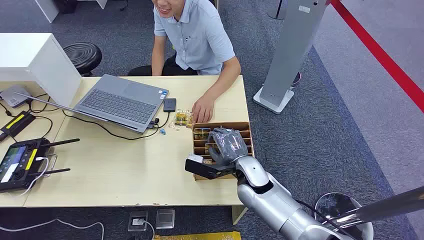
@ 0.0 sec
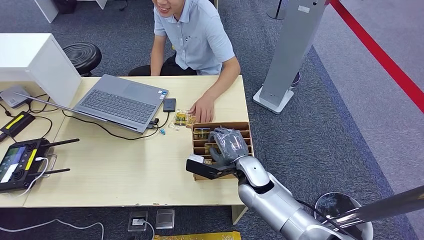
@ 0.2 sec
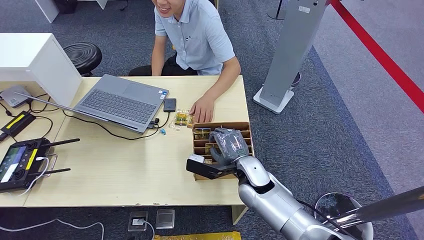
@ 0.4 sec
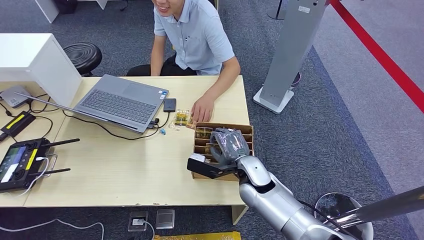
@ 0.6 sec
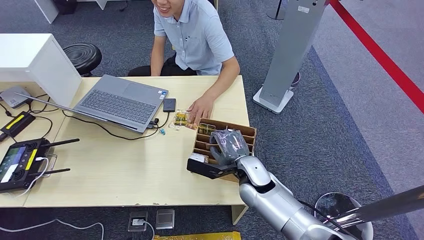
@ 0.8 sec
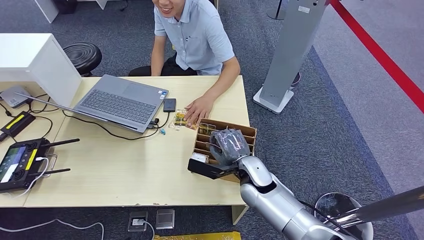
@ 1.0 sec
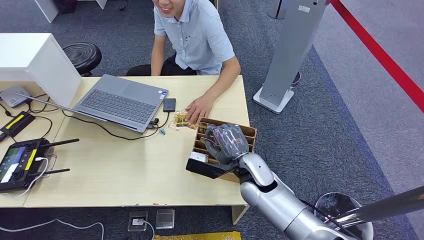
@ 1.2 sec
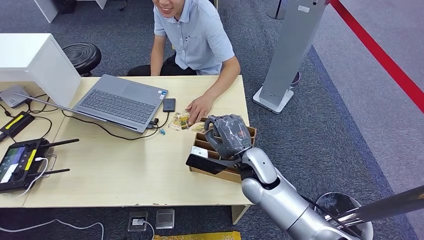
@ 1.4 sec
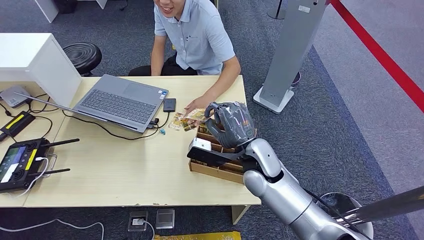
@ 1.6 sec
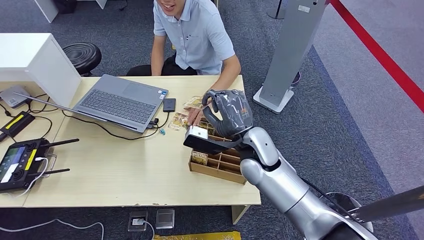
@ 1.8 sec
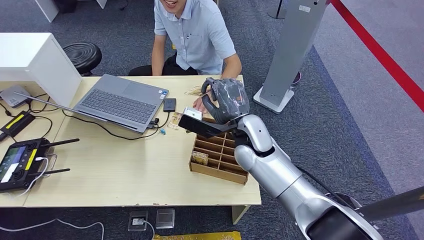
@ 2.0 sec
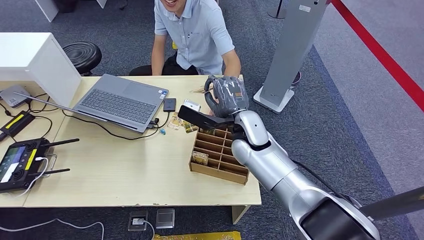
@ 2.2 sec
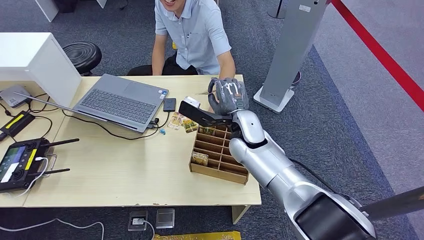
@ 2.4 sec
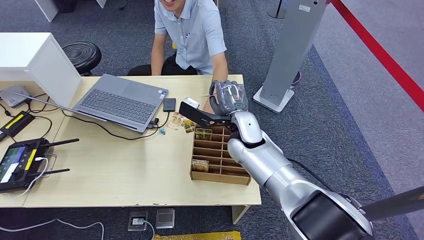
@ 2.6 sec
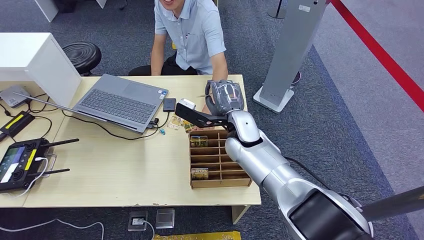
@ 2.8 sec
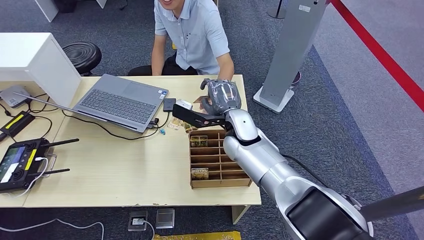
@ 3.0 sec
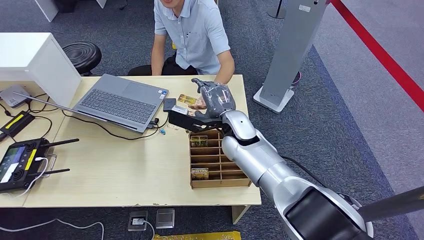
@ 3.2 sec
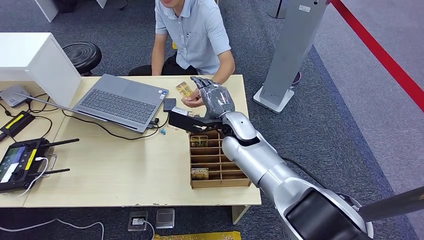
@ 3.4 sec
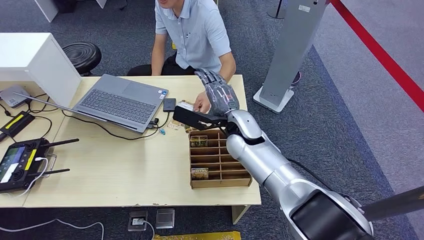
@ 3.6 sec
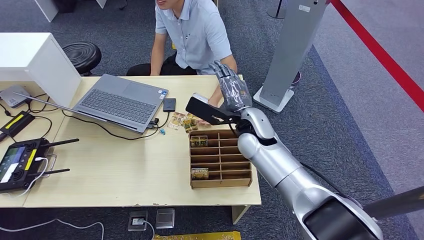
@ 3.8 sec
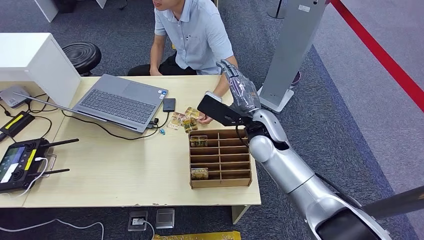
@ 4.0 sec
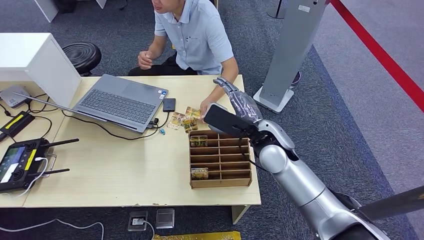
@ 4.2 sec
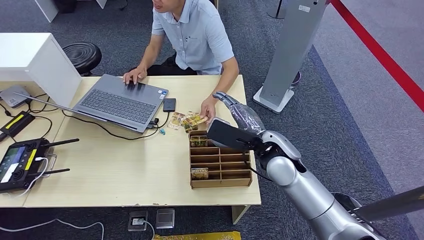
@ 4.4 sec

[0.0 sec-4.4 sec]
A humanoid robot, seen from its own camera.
Step, 0.0 sec to 1.4 sec: Pick up the key card from the card box.
Step, 1.6 sec to 4.4 sec: Hand the key card to the target.
1.4 sec to 3.0 sec: The right hand moves forward and upward, roughly 10 cm.
3.0 sec to 4.4 sec: The right hand goes about 10 cm to the right and backward.
